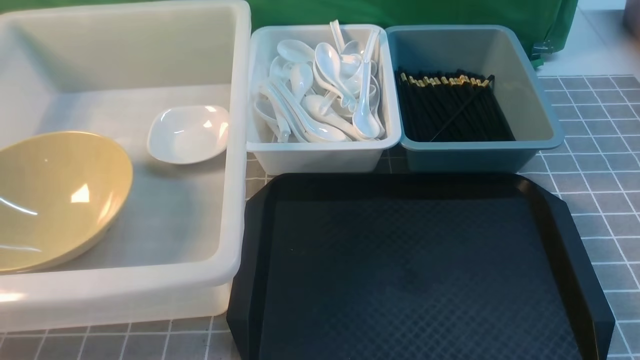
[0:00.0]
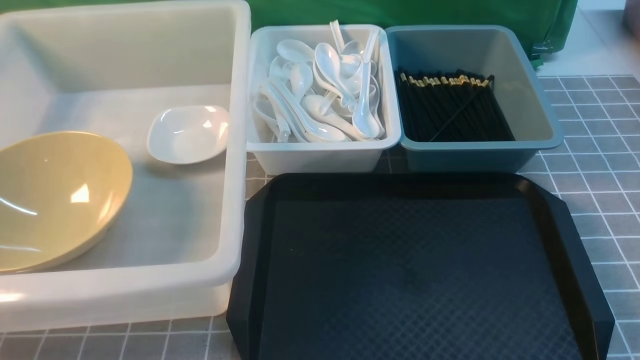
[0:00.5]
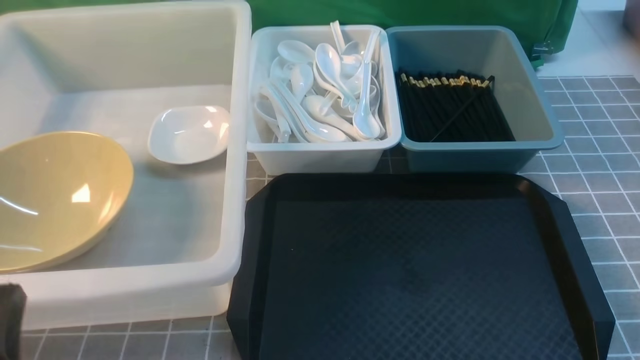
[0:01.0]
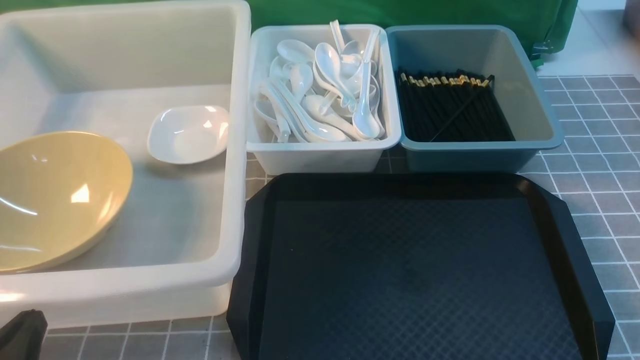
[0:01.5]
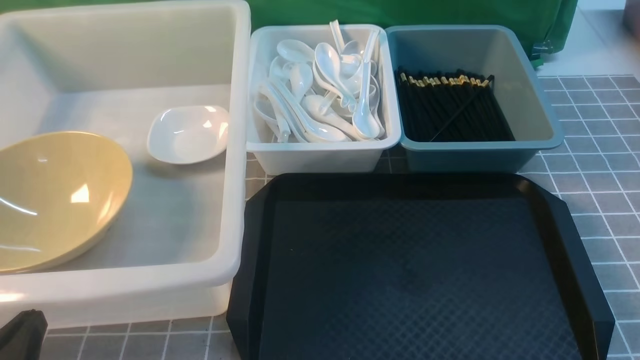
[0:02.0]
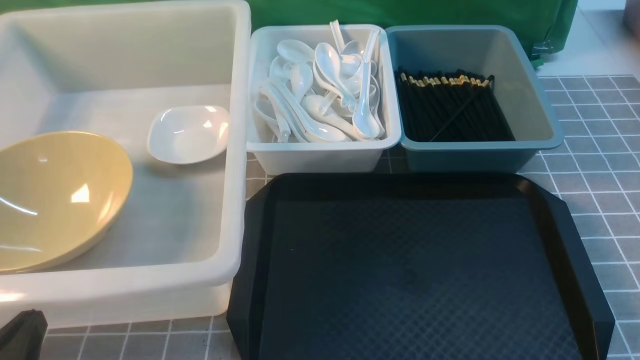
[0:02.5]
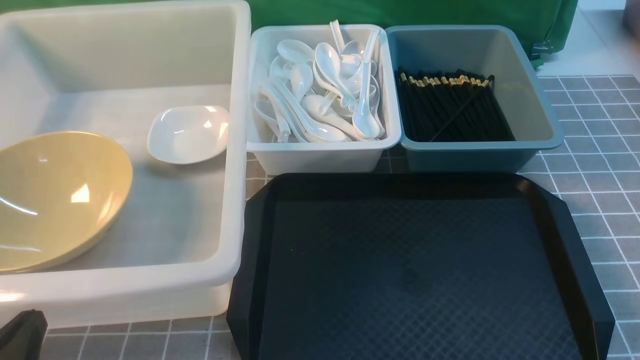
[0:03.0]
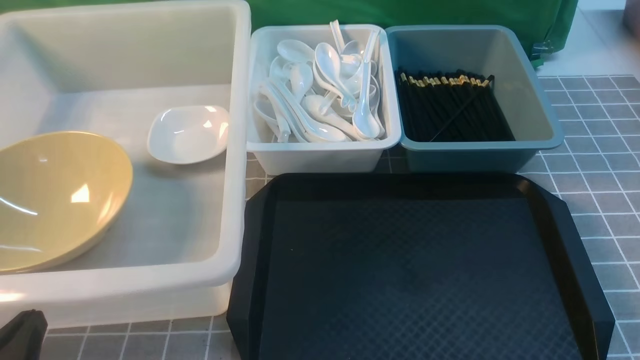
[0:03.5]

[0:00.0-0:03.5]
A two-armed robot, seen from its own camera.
Task of the whole recording: on grey table put chopsticks spoon bowls plates into blue grey white boxes.
0:00.0 to 0:02.0: The left gripper heads downward, covering about 15 cm.
0:02.0 to 0:03.5: The two grippers keep their place.

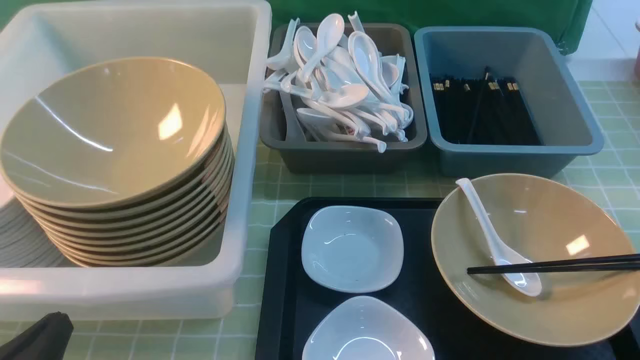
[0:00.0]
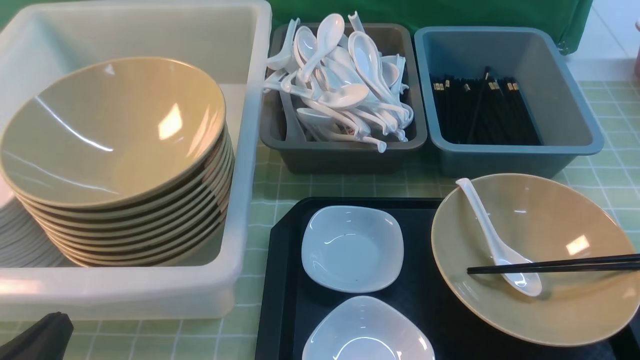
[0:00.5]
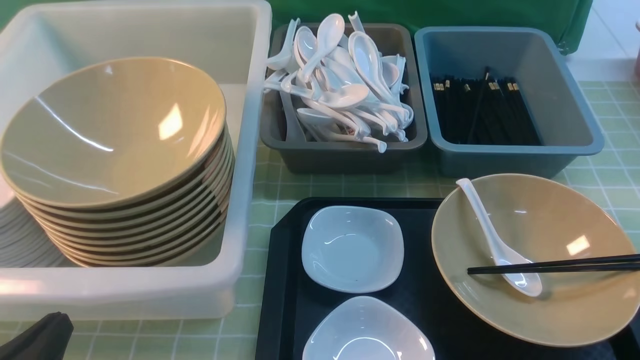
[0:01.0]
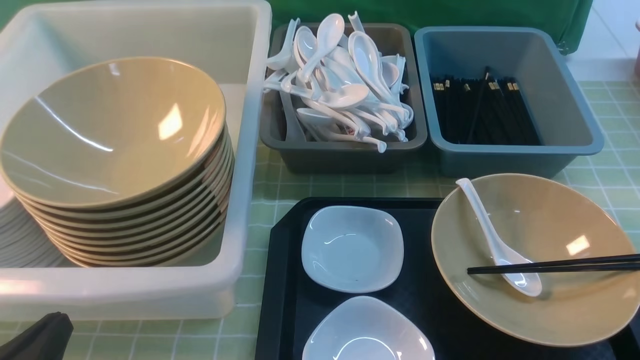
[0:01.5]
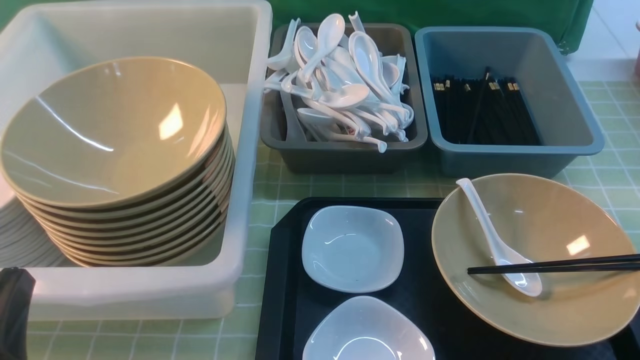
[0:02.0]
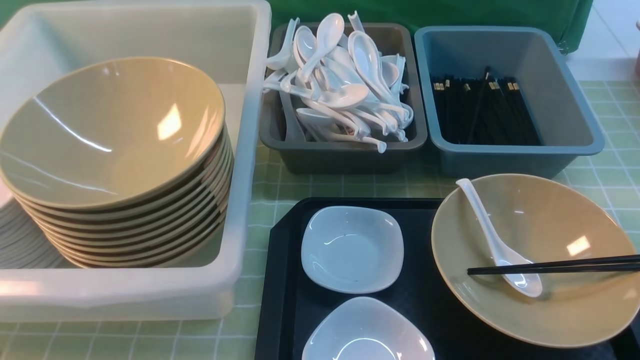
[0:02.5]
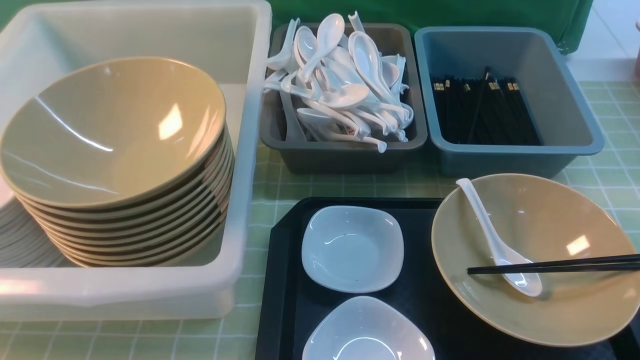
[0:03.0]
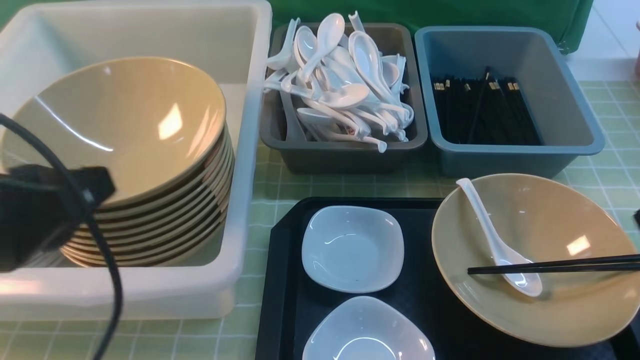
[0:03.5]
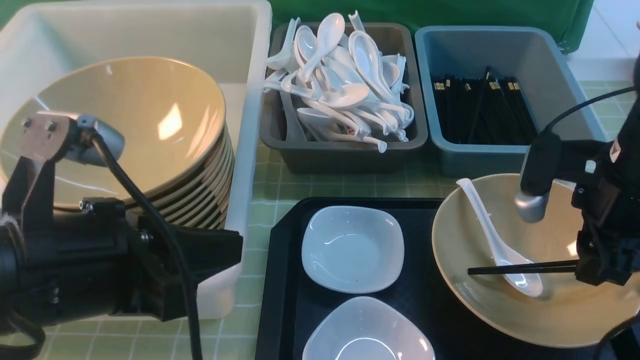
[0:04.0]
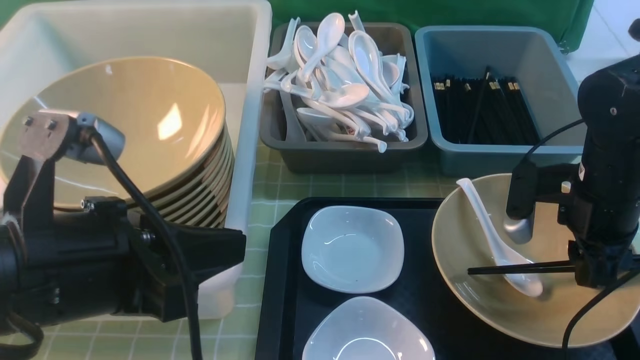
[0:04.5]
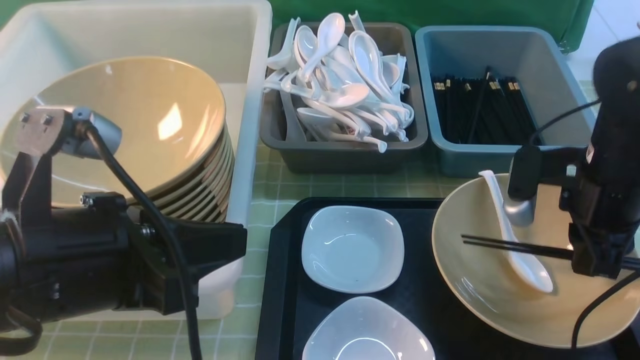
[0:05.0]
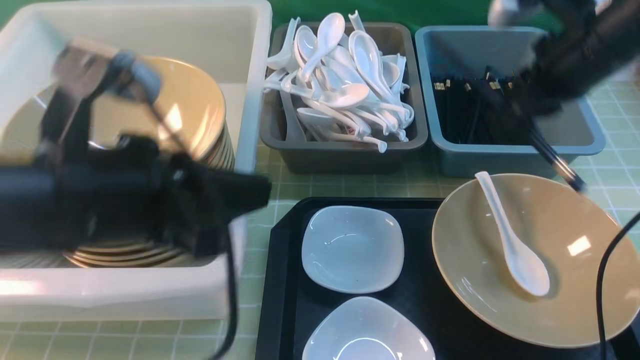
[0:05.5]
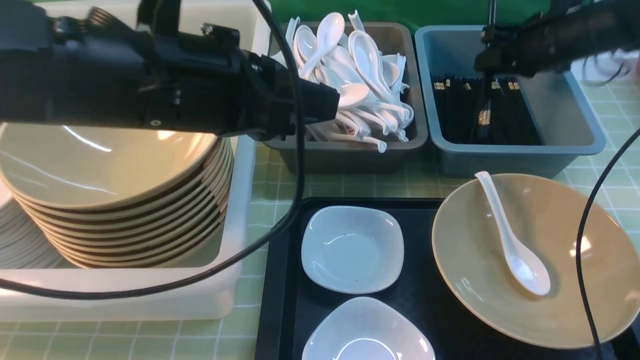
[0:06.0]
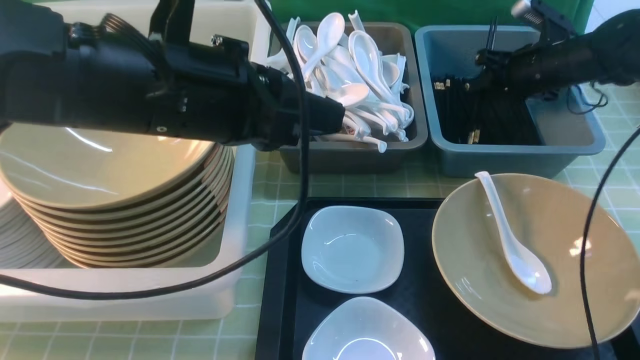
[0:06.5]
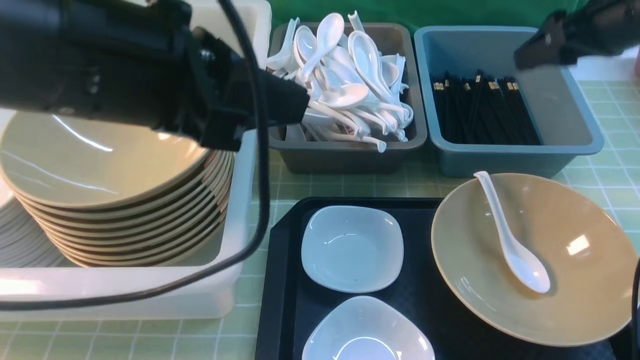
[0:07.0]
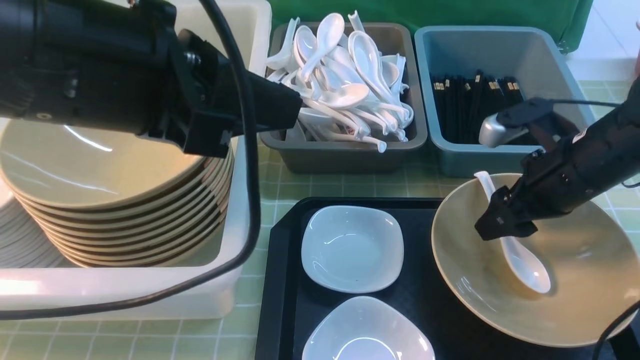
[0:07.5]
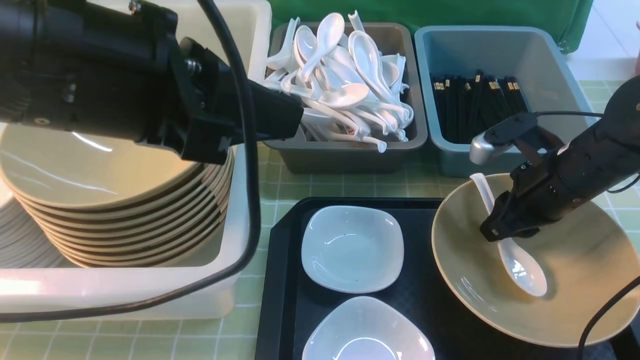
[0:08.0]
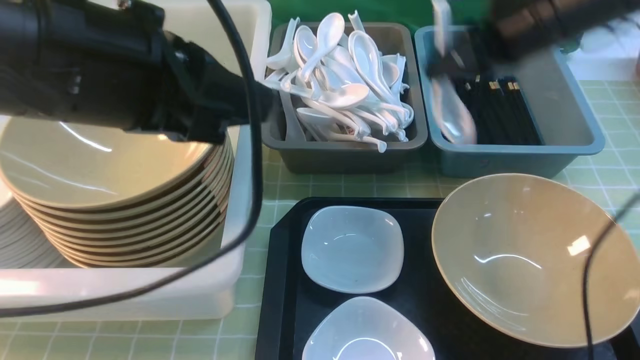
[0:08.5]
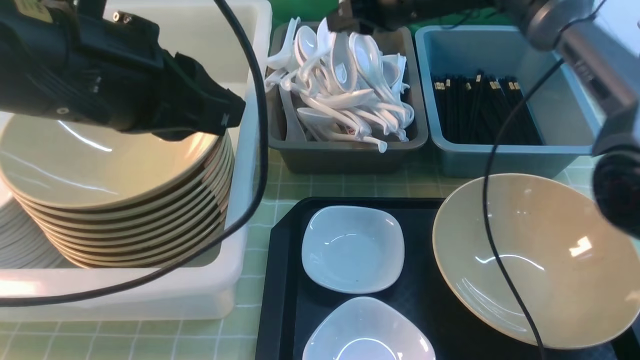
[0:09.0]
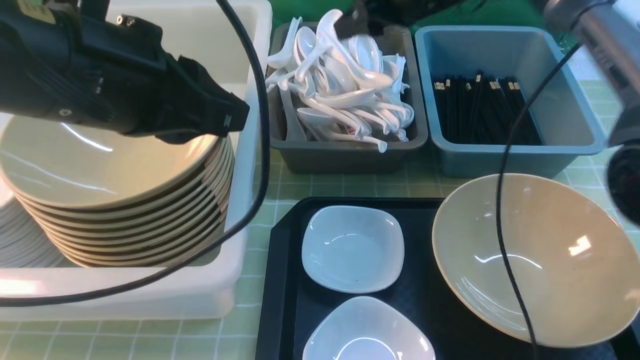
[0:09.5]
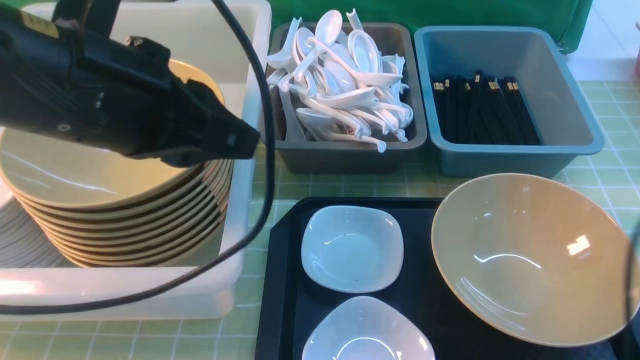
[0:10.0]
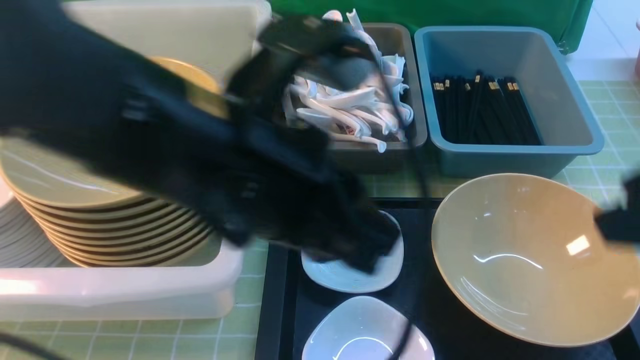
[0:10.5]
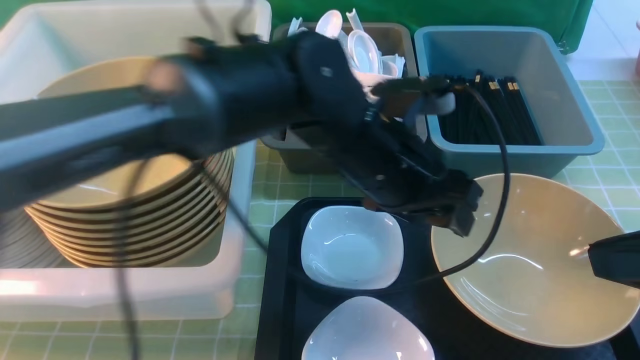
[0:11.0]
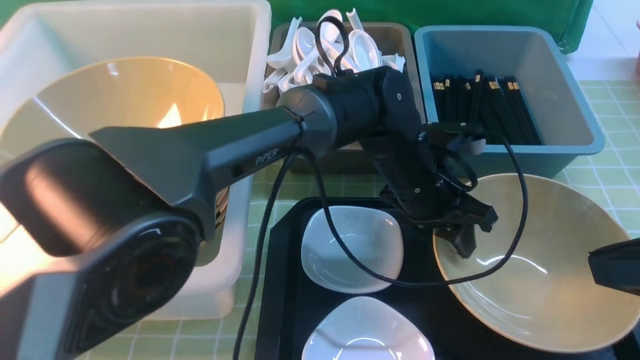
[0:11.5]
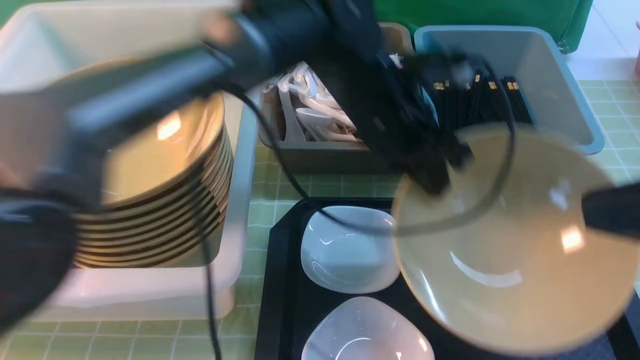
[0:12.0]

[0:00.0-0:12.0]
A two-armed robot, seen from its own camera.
Task of the whole recording: on green table put chopsticks spoon bowls plates into blue grey white boxes.
Step, 0:00.0 to 0:05.0: use the right arm to grab the chopsticks.
Step, 0:05.5 to 0:06.5: use the right arm to put the chopsticks into the small storage box on the right.
Step, 0:07.5 to 0:08.0: use the right arm to grab the soup spoon in the middle.
Step, 0:08.5 to 0:10.0: use the right arm to put the soup spoon into the small storage box in the middle.
Step, 0:10.5 to 0:11.5: use the left arm to grab the yellow noodle bowl on the left.
0:00.0 to 0:02.0: The grippers stay close to where they were, moving slightly.
0:02.0 to 0:04.0: The right gripper shifts roughly 25 cm forward. The left gripper goes some 15 cm upward, to the right and forward.
0:04.0 to 0:06.0: The right gripper moves forward, approximately 20 cm, and closes its fingers. Meanwhile the left gripper shifts some 10 cm forward and to the right.
0:06.0 to 0:08.0: The left gripper shifts by roughly 5 cm. The right gripper shifts approximately 15 cm backward, and opens and closes again.
0:08.0 to 0:10.0: The right gripper is displaced upward by roughly 25 cm, and opens its fingers.
0:10.0 to 0:12.0: The right gripper is displaced backward by approximately 20 cm, and closes its fingers; the left gripper heads to the right, forward and downward, covering roughly 20 cm, and opens, then closes again.

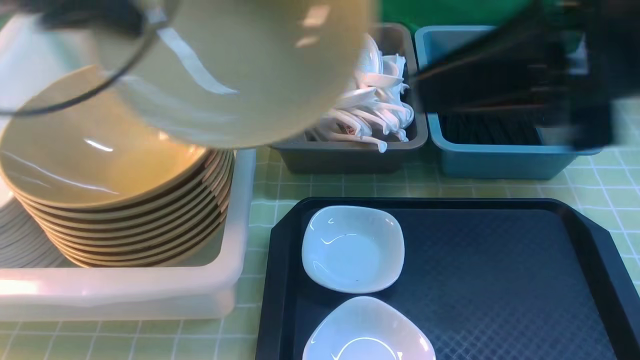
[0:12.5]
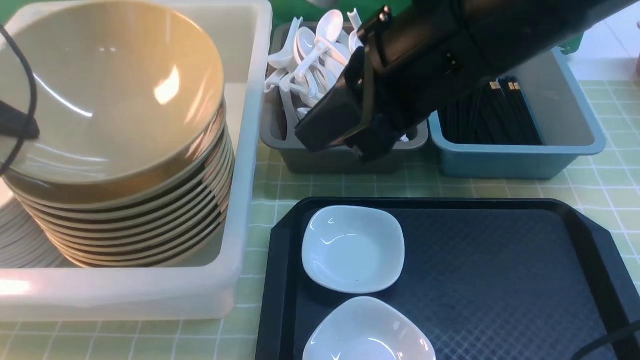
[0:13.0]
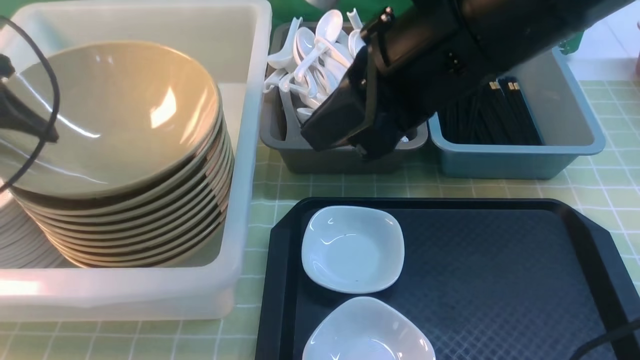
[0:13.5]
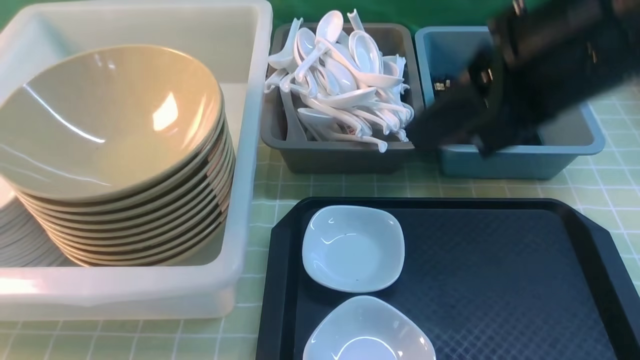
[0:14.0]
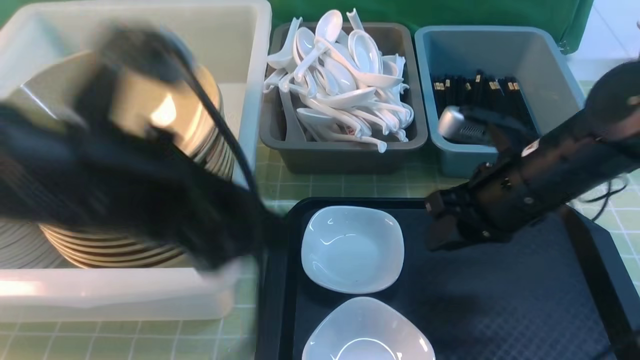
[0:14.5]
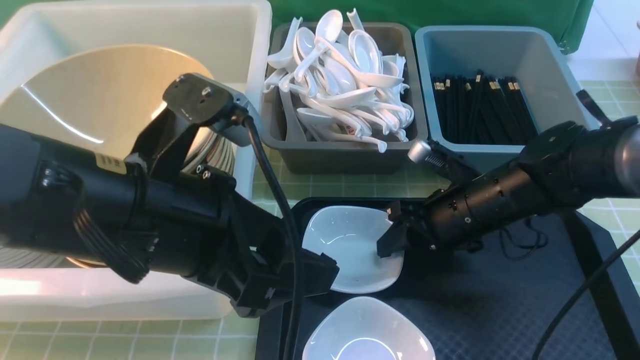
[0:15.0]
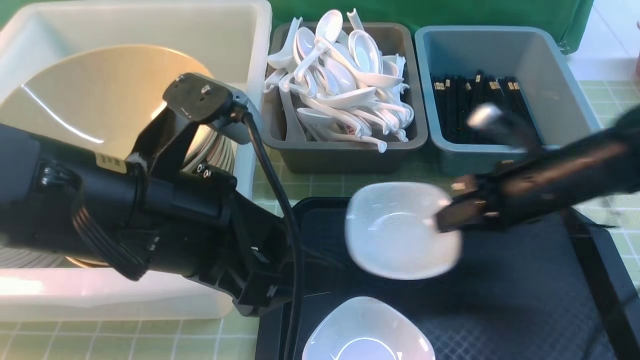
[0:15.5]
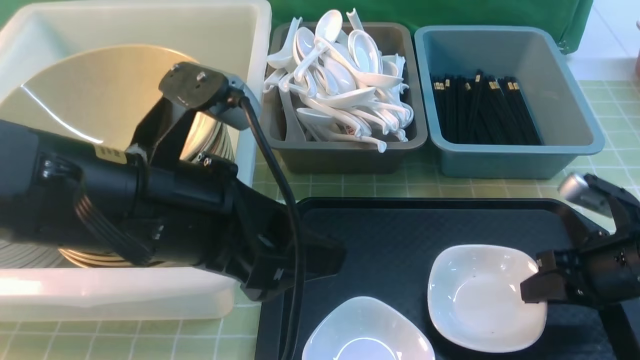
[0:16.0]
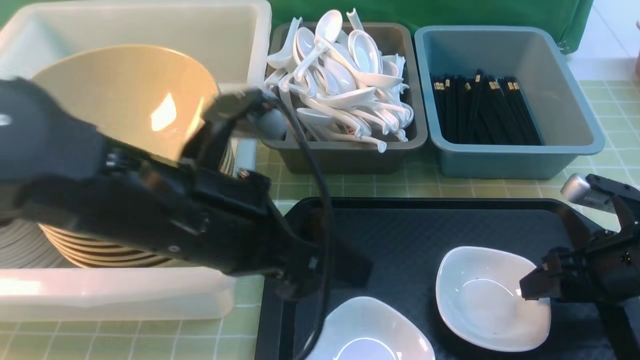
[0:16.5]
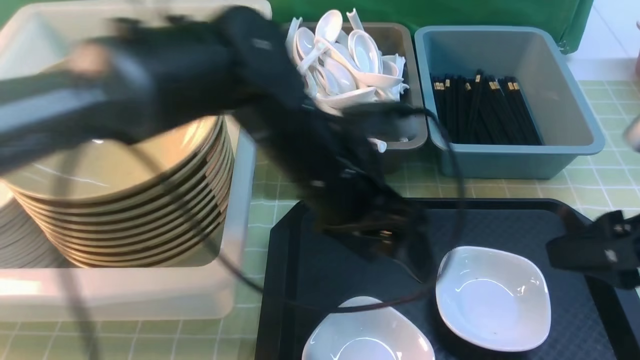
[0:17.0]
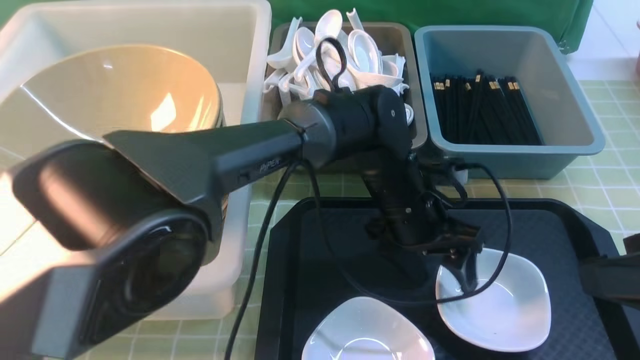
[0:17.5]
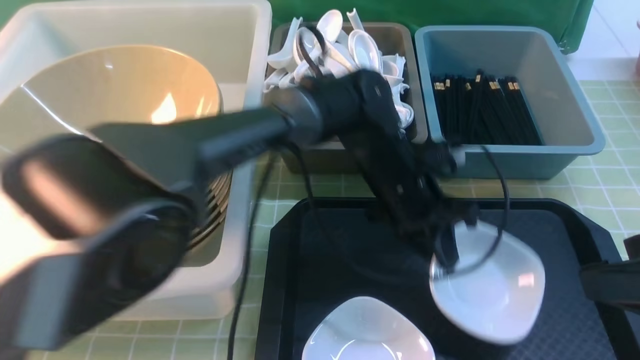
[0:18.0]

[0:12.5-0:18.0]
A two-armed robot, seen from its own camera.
Task of the whole recording: on green table put chopsticks spoon bowls plates into blue grey white boxes.
Step, 0:12.5 to 0:13.5: use the left arm to put the noodle bowl into the large storage box on the left.
Step, 0:14.0 to 0:15.0: use the right arm to grab the plate.
Step, 0:16.0 to 0:16.5: use the right arm to put the plate on the tray.
Step, 0:17.0 to 0:18.0: use the left arm to grab the plate.
0:12.5 to 0:14.5: The left gripper goes some 15 cm backward, to the right and downward, and opens its fingers, while the right gripper goes approximately 25 cm downward and forward.
0:14.5 to 0:16.0: The right gripper goes some 15 cm to the right, downward and backward.
0:16.0 to 0:18.0: The right gripper heads upward and backward, covering about 20 cm, and opens up. The left gripper shifts roughly 25 cm forward, to the right and downward, and closes.
